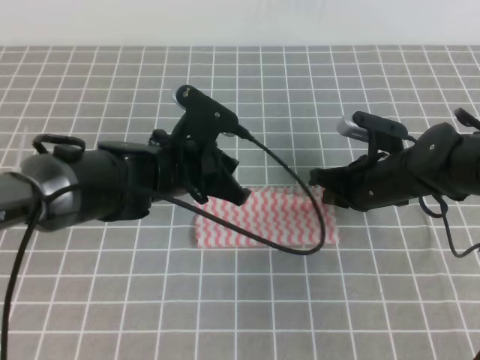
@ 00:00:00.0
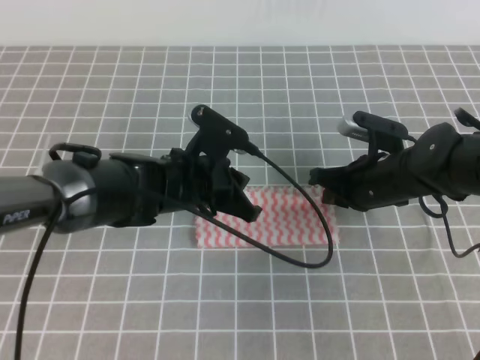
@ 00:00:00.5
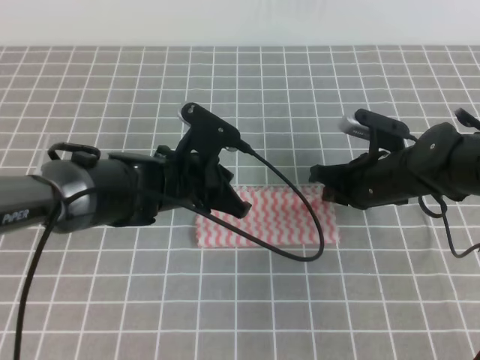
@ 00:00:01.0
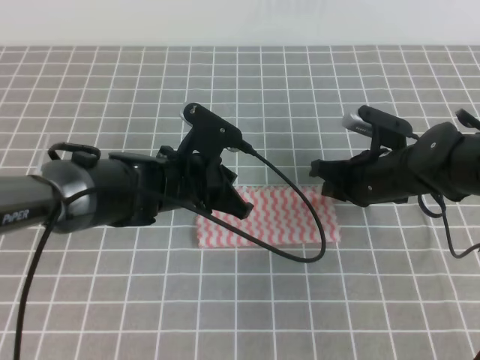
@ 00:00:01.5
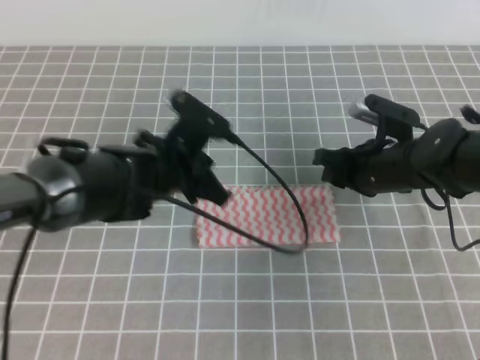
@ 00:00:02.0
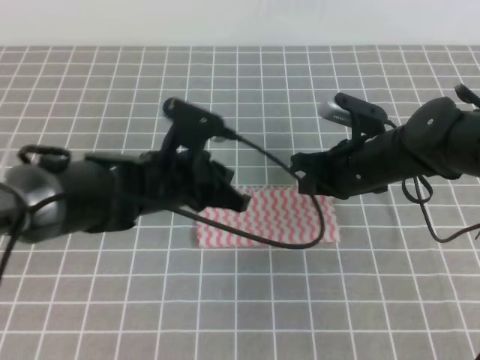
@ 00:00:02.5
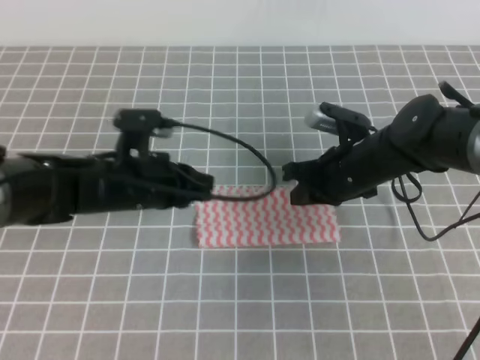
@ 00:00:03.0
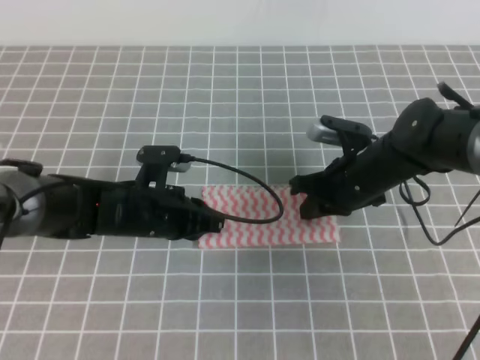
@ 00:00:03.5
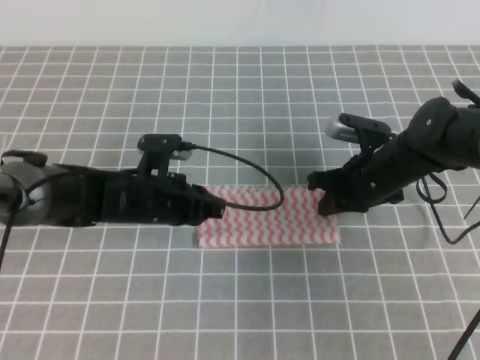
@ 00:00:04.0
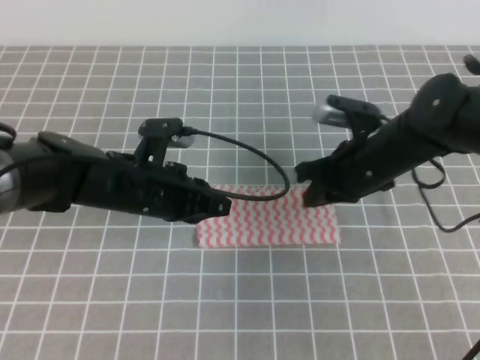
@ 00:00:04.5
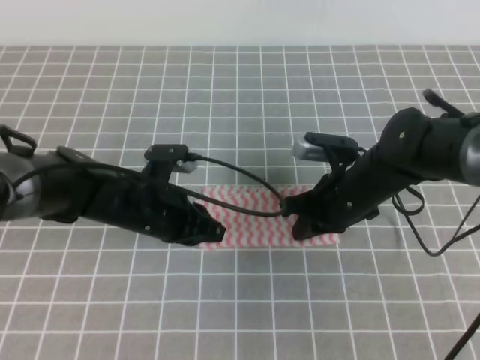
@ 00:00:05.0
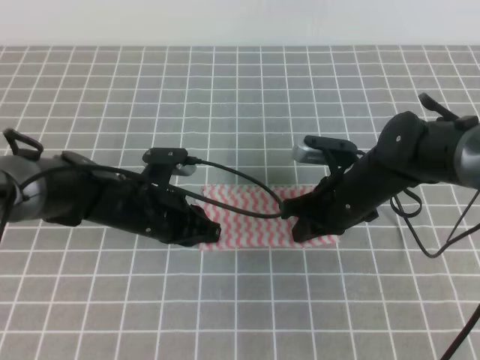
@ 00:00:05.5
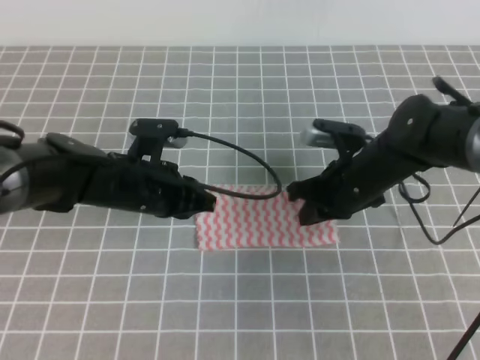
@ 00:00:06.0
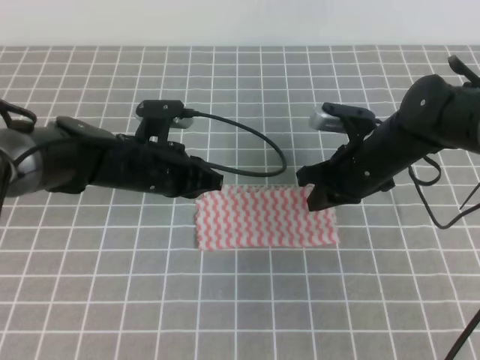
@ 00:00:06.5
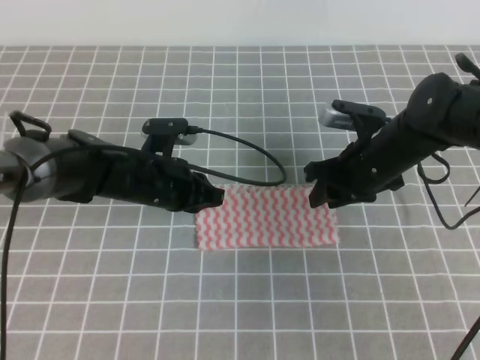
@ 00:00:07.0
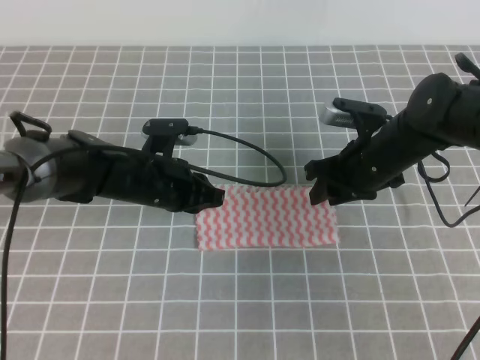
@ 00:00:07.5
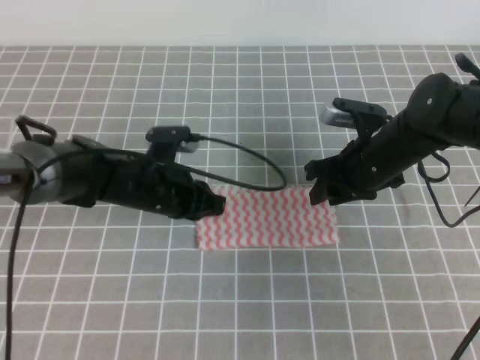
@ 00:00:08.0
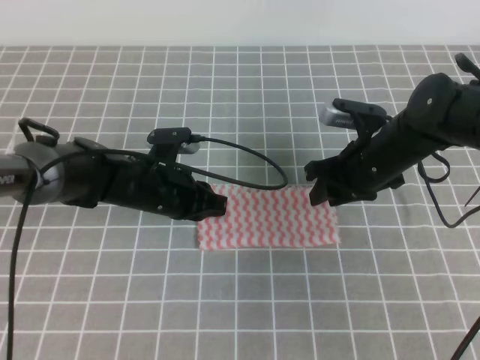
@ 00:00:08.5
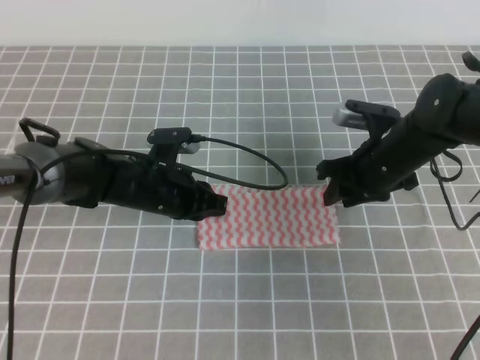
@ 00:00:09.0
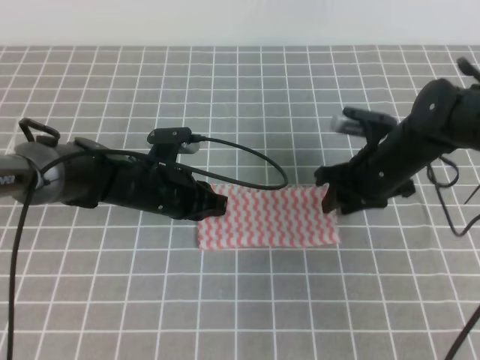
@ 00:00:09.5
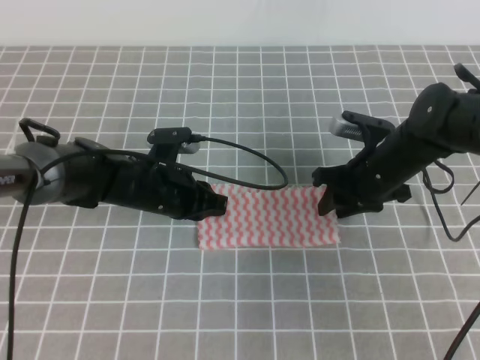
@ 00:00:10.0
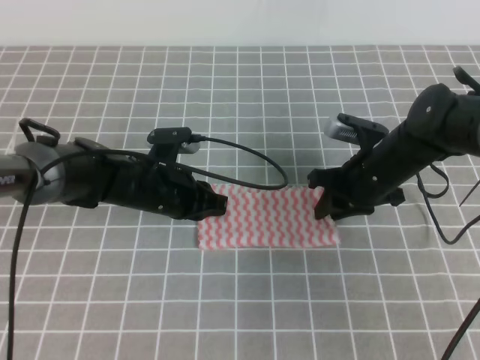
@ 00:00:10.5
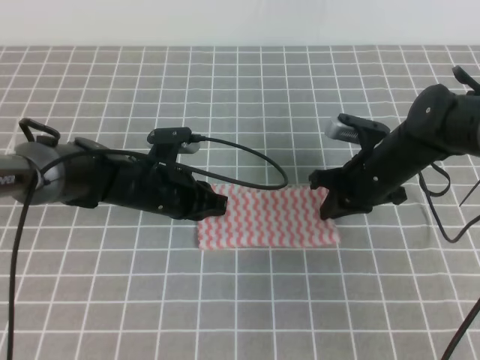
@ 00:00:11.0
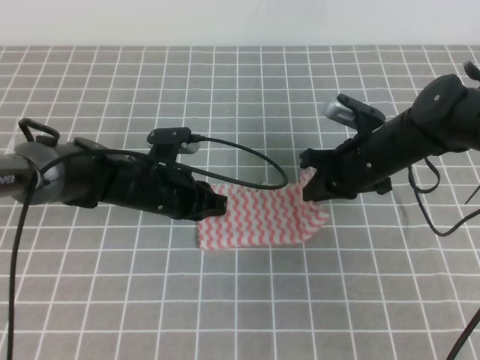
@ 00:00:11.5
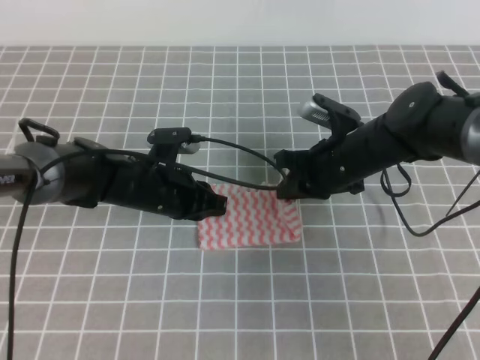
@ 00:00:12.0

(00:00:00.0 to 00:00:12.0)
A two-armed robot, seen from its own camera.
00:00:00.0 - 00:00:02.0: The right gripper opens up. The left gripper closes its fingers.
00:00:02.0 - 00:00:04.0: The left gripper shifts some 5 cm downward, while the right gripper closes its fingers.
00:00:04.0 - 00:00:06.0: The grippers move only a little.
00:00:06.0 - 00:00:08.0: The right gripper opens its fingers.
00:00:08.0 - 00:00:10.0: The grippers move only a little.
00:00:10.0 - 00:00:12.0: The right gripper closes its fingers.

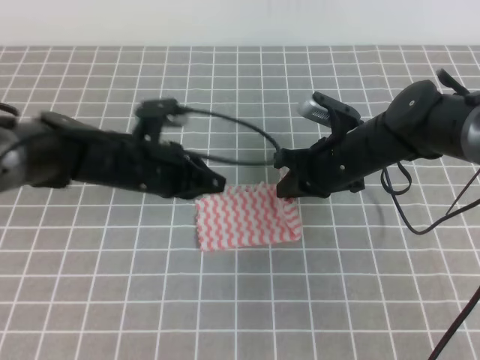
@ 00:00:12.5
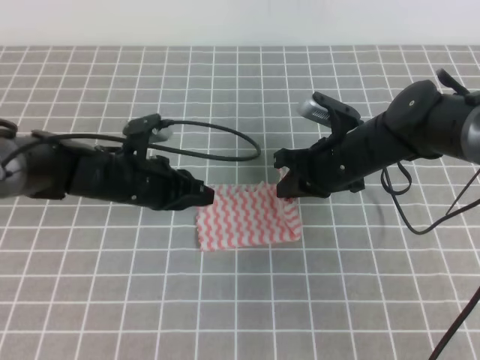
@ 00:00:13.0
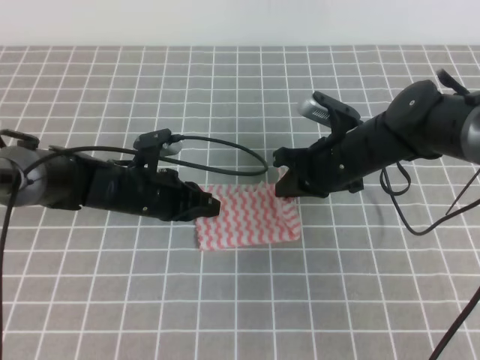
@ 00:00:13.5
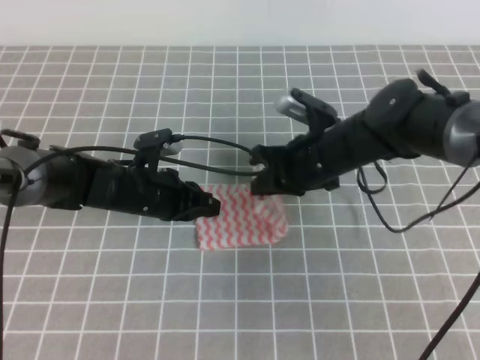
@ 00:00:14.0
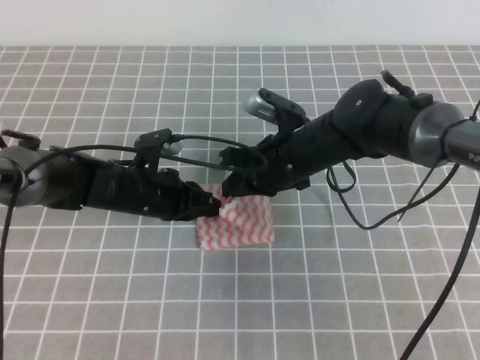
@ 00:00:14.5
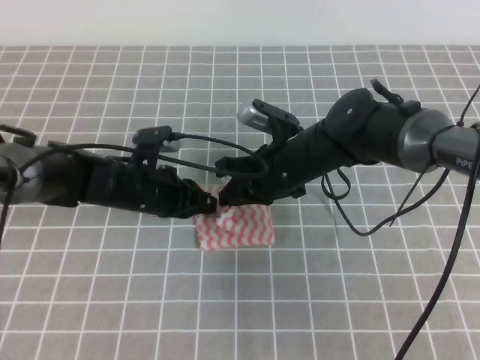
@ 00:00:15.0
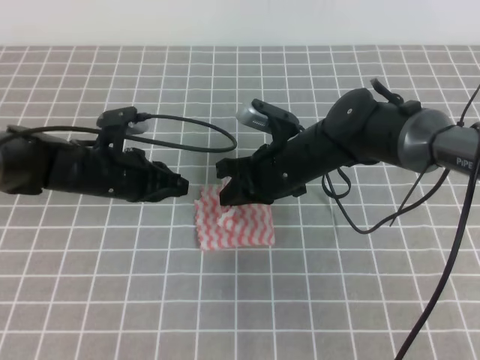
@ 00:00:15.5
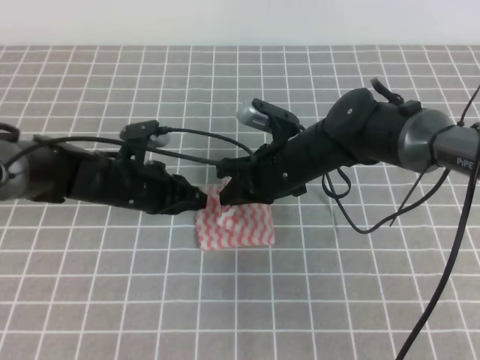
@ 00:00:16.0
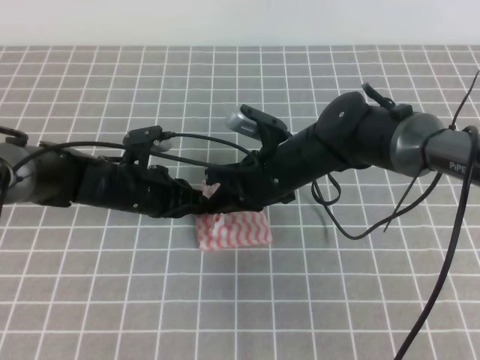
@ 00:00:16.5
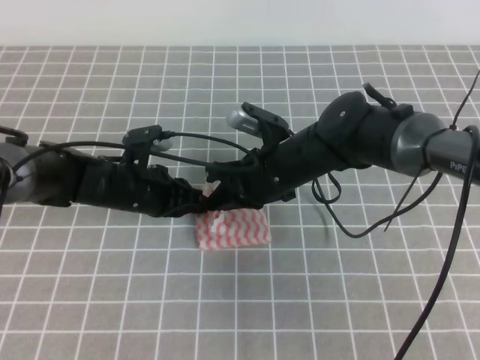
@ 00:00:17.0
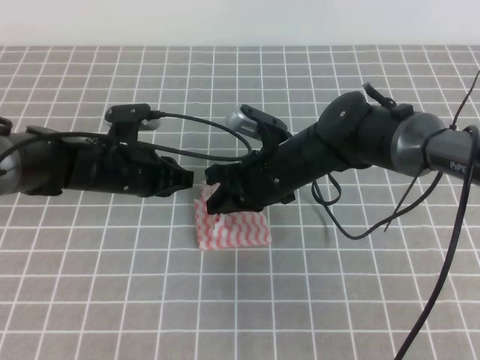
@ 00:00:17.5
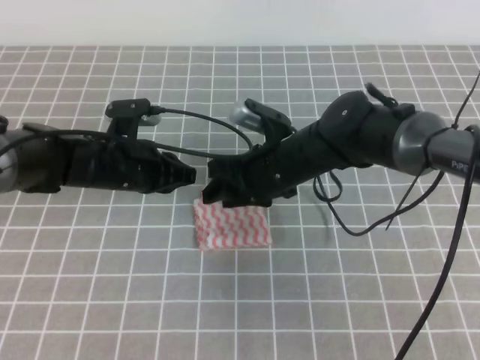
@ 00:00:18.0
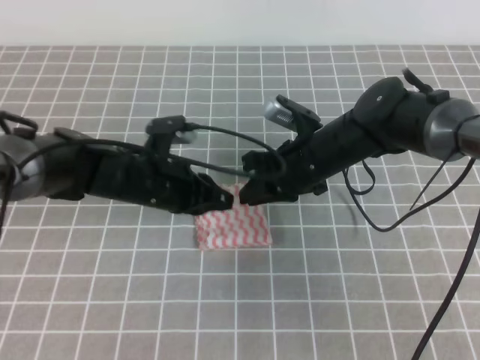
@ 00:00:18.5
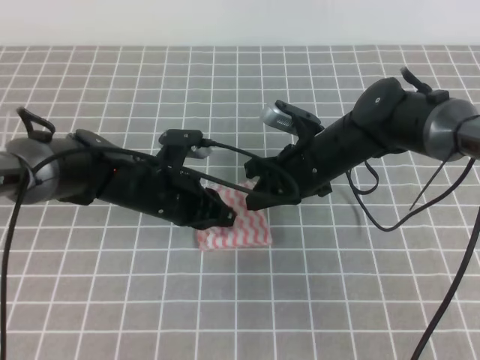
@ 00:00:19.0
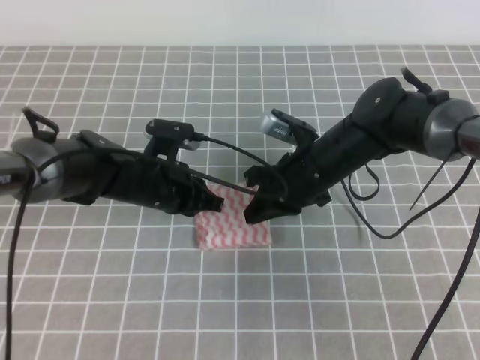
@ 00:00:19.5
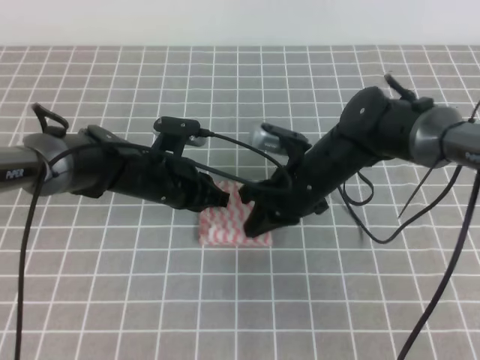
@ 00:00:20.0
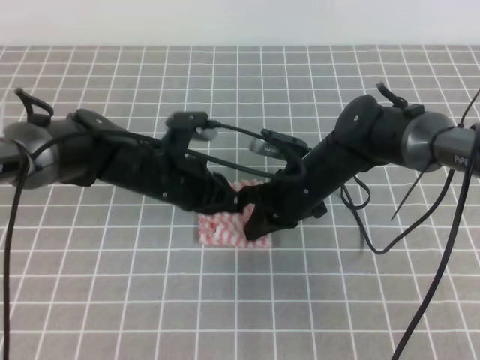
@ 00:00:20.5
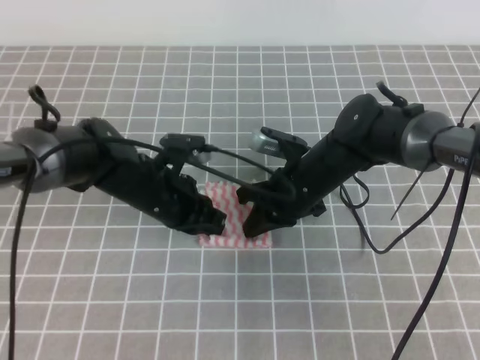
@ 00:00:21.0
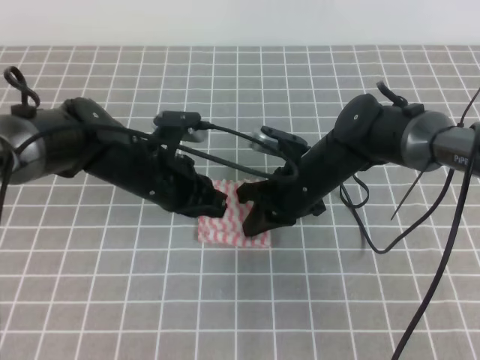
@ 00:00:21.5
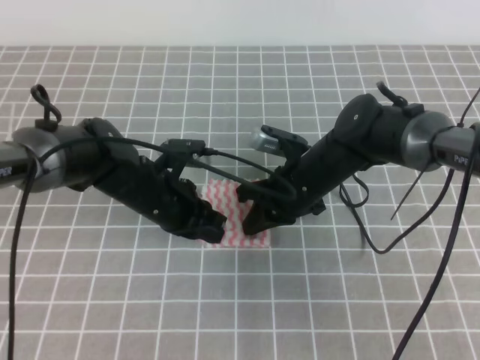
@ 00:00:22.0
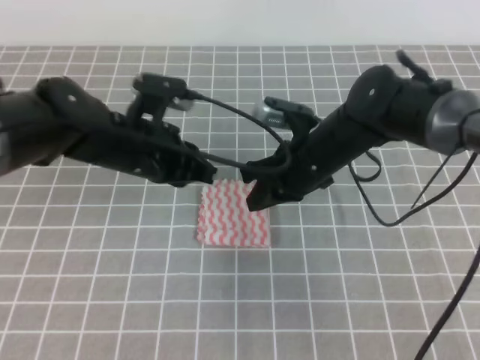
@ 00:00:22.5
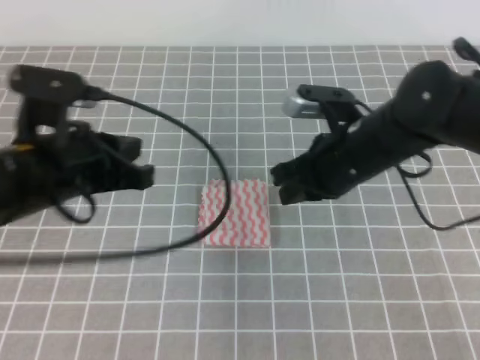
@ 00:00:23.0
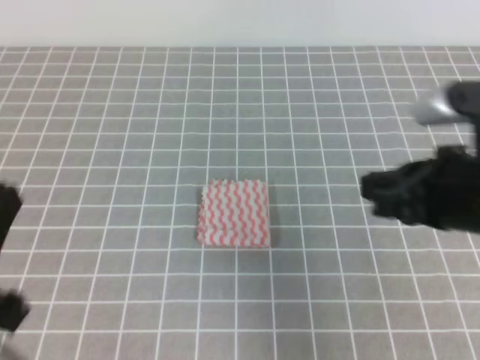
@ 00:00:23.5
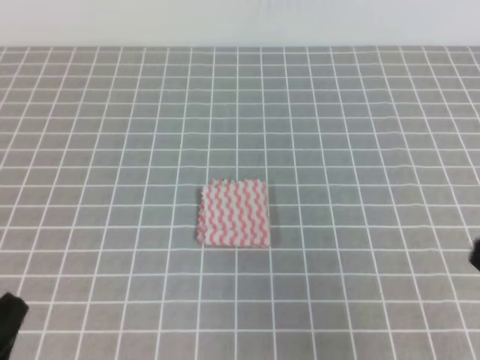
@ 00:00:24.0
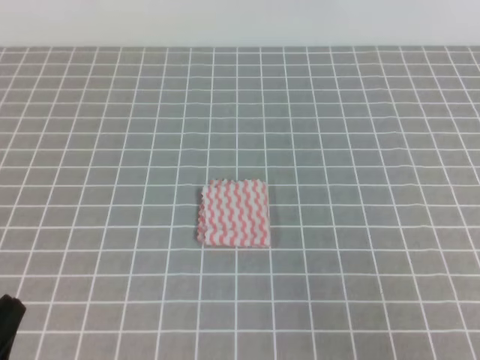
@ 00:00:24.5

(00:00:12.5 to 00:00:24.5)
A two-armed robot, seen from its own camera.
00:00:12.5 - 00:00:14.5: The left gripper shifts about 5 cm downward; the right gripper moves to the left, approximately 5 cm.
00:00:14.5 - 00:00:16.5: There are only small adjustments of the grippers.
00:00:16.5 - 00:00:18.5: The right gripper opens its fingers.
00:00:18.5 - 00:00:20.5: The right gripper closes up.
00:00:20.5 - 00:00:22.5: The left gripper moves roughly 5 cm.
00:00:22.5 - 00:00:24.5: The left gripper travels backward and to the left by approximately 30 cm, while the right gripper is displaced backward and to the right by roughly 35 cm.
